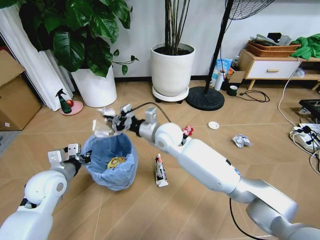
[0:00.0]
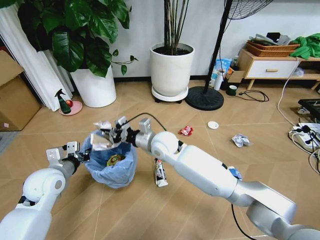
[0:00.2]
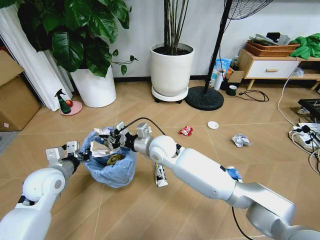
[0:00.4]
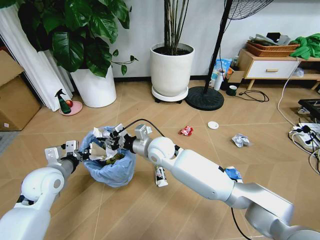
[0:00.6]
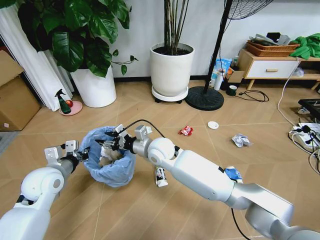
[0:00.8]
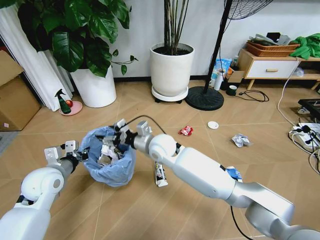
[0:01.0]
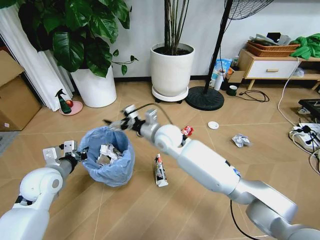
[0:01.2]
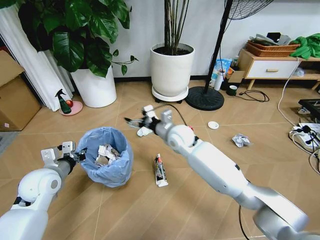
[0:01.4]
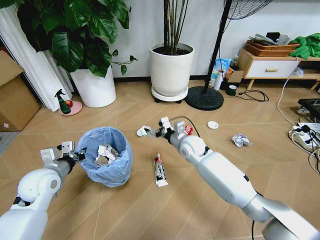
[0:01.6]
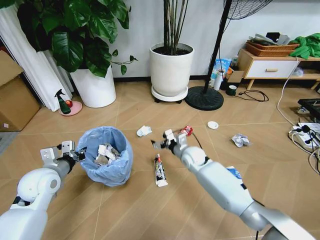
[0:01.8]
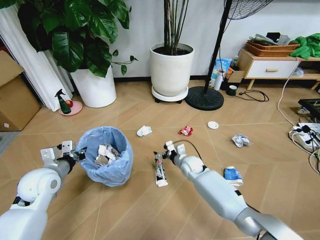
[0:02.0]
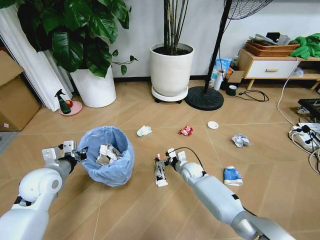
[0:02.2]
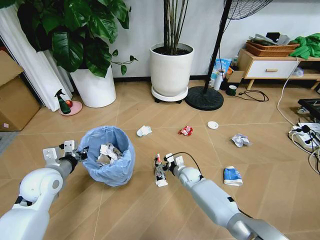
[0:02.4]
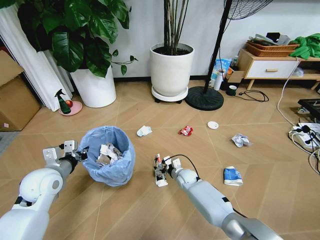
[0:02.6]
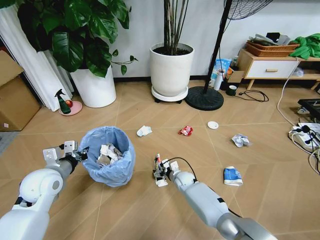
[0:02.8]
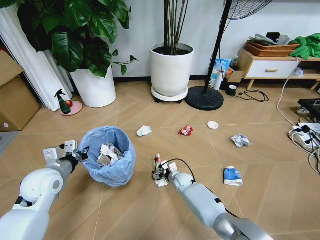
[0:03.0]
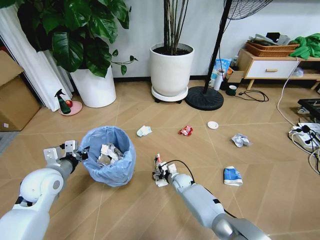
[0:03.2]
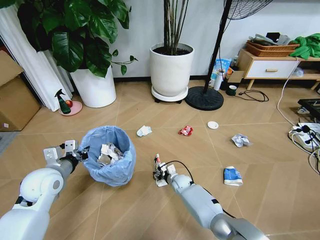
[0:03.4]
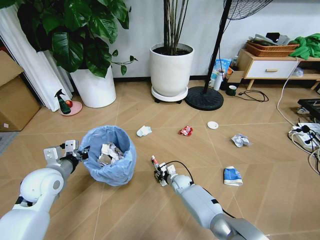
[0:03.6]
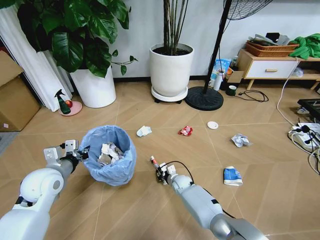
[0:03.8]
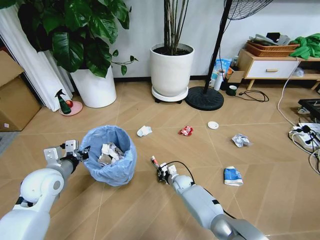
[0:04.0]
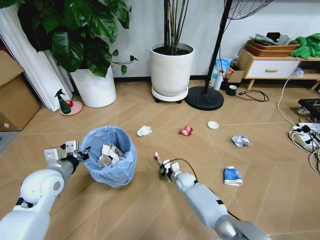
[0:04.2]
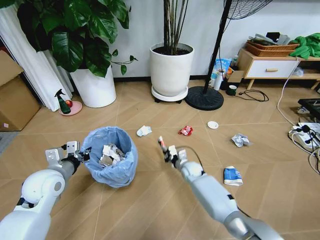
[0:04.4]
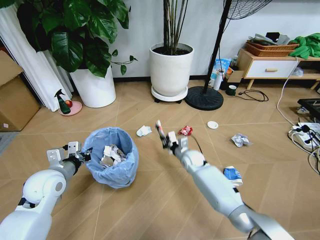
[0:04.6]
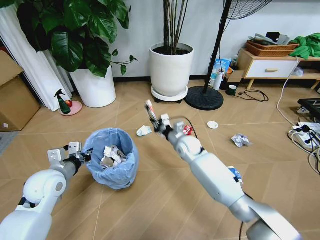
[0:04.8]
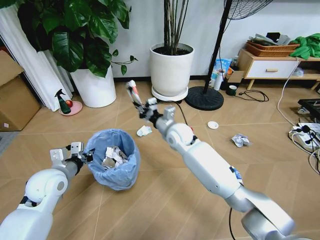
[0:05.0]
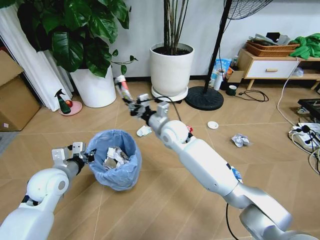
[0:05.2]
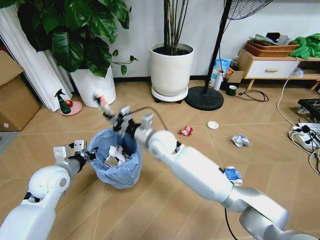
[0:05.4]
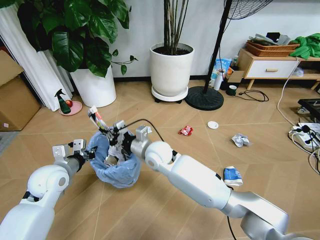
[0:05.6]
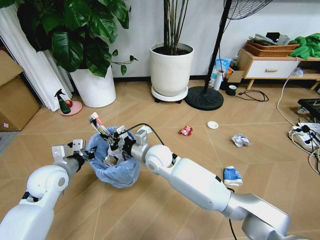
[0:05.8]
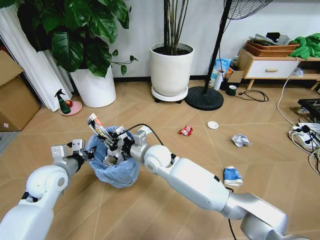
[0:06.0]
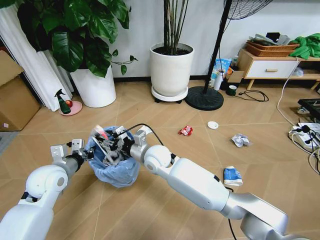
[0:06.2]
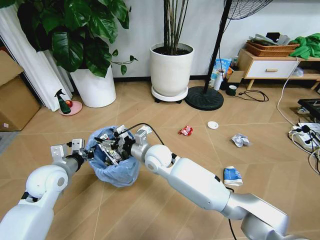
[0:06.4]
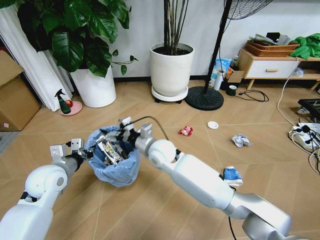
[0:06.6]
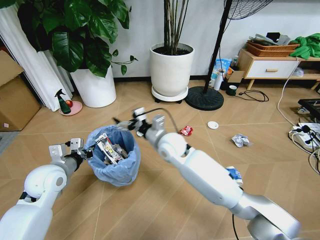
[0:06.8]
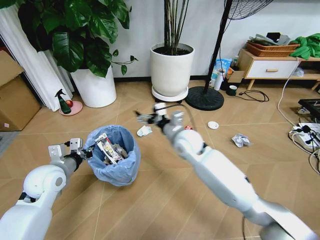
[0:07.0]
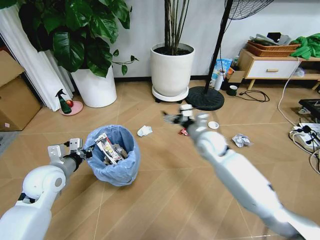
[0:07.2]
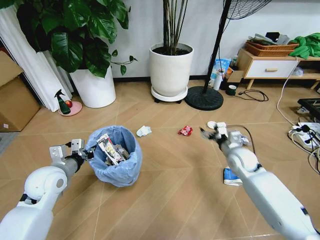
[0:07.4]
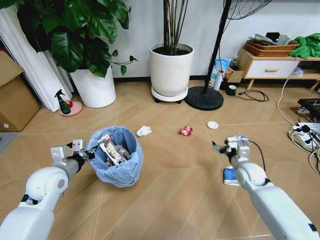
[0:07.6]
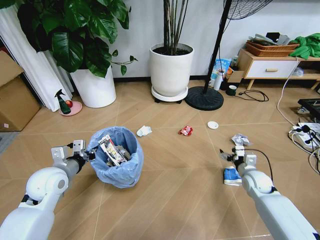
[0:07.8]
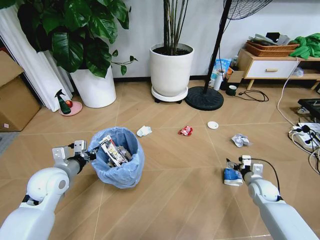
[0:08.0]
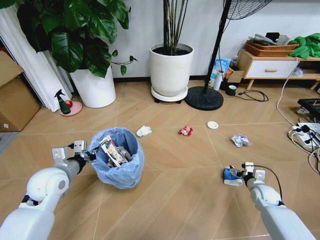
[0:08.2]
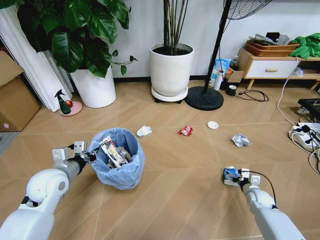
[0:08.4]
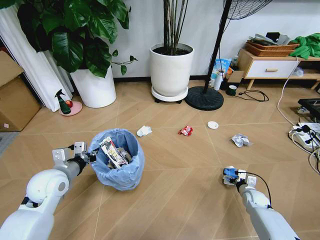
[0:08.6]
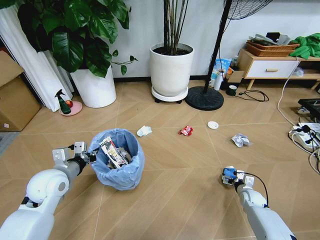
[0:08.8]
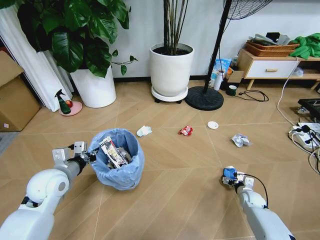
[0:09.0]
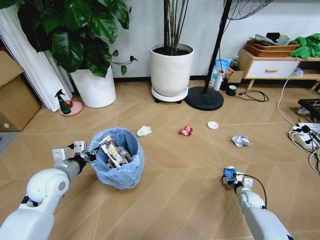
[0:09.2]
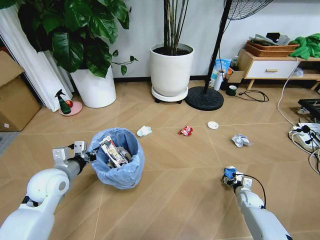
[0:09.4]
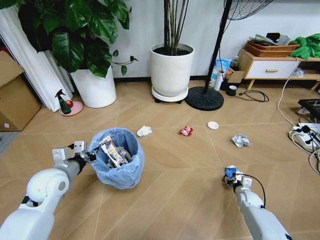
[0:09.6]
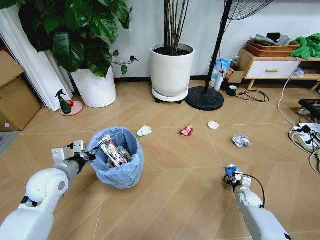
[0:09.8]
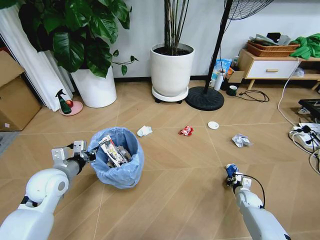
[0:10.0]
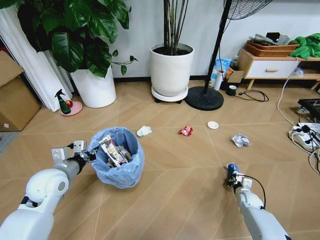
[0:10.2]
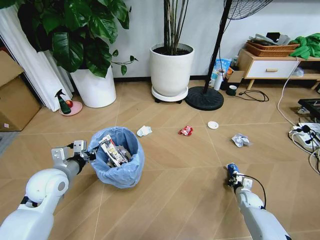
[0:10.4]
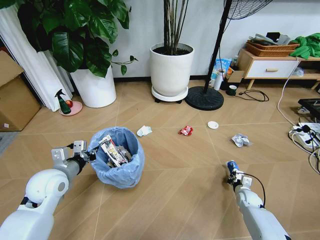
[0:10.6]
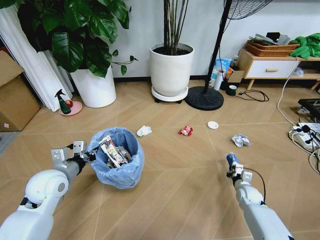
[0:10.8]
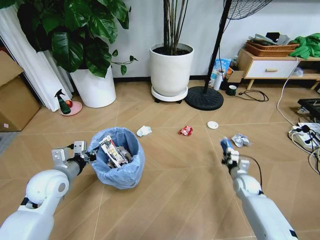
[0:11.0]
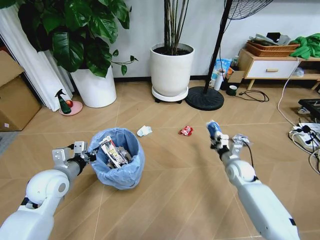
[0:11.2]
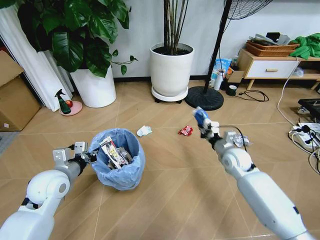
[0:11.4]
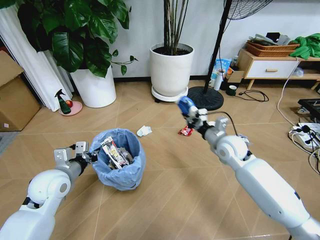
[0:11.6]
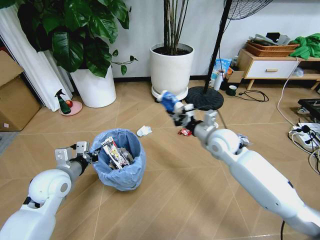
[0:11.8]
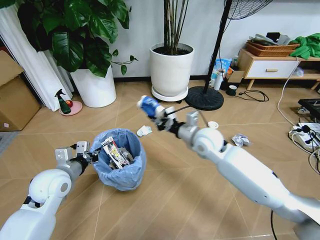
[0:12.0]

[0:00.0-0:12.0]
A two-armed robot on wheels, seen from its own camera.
Task of the whole recording: Pick up the trash bin and place the garbage on the floor into it.
0:00.0 to 0:01.6: The right gripper shifts roughly 15 cm to the right and downward, and opens.
0:01.6 to 0:03.0: The right gripper goes some 25 cm downward.
0:03.0 to 0:04.4: The right gripper shifts by roughly 5 cm, and closes its fingers.
0:04.4 to 0:06.0: The right gripper is displaced upward and to the left by approximately 25 cm.
0:06.0 to 0:07.6: The right gripper shifts some 35 cm to the right, and opens up.
0:07.6 to 0:09.0: The right gripper moves downward, about 15 cm.
0:09.0 to 0:10.4: The right gripper closes.
0:10.4 to 0:12.0: The right gripper heads upward and to the left, covering roughly 40 cm.

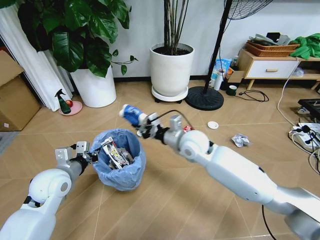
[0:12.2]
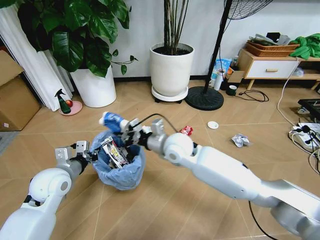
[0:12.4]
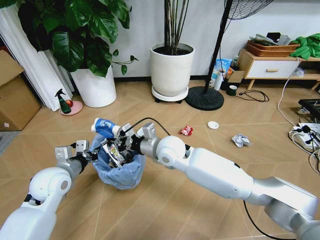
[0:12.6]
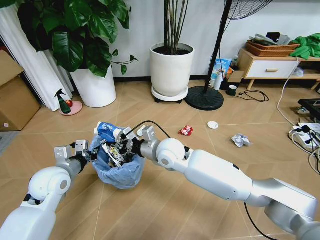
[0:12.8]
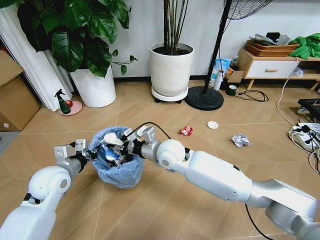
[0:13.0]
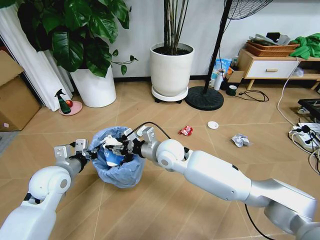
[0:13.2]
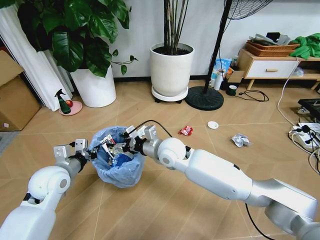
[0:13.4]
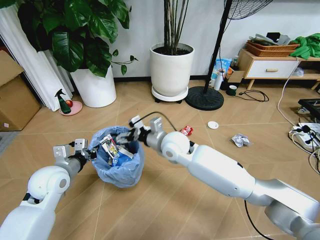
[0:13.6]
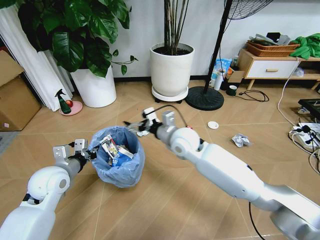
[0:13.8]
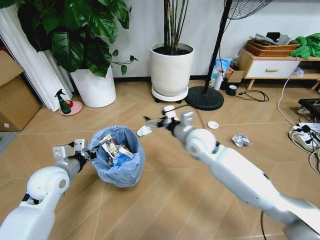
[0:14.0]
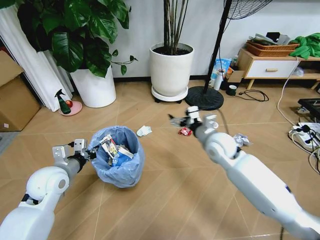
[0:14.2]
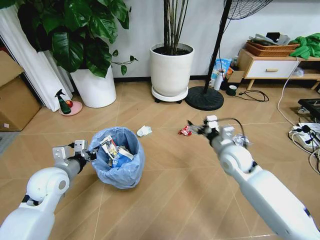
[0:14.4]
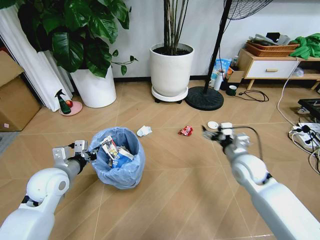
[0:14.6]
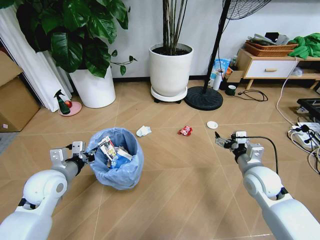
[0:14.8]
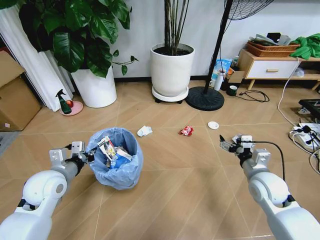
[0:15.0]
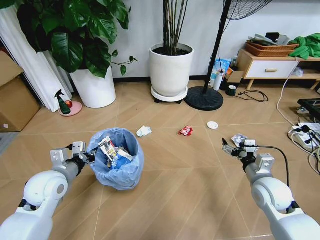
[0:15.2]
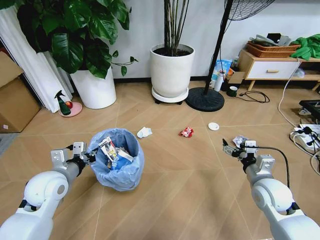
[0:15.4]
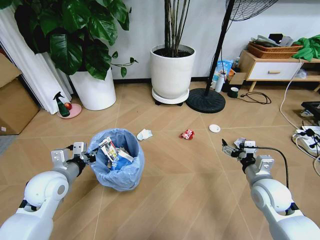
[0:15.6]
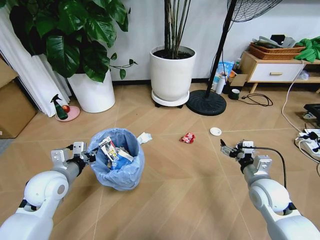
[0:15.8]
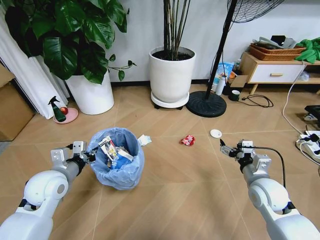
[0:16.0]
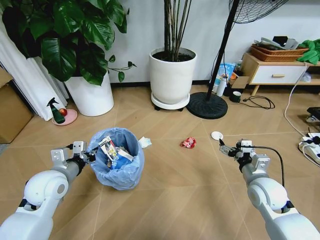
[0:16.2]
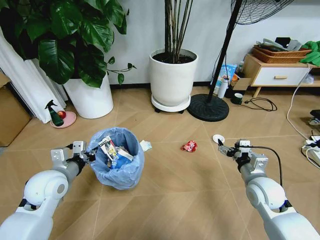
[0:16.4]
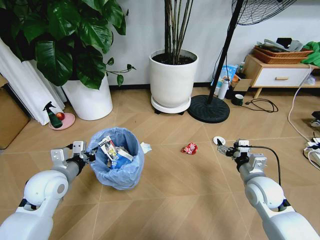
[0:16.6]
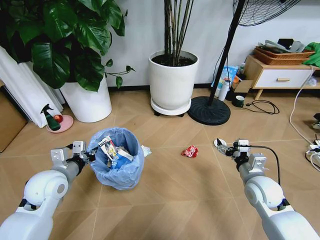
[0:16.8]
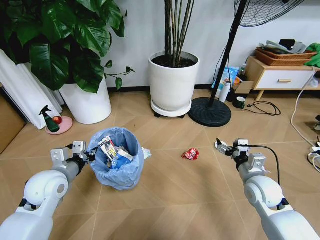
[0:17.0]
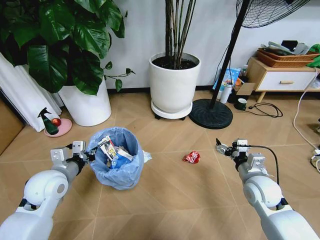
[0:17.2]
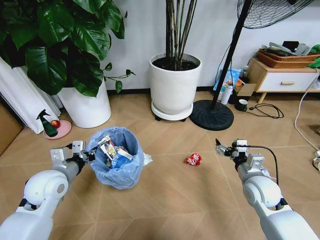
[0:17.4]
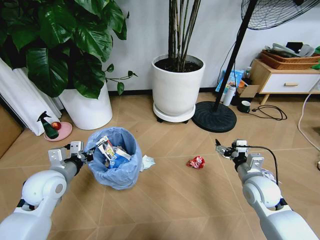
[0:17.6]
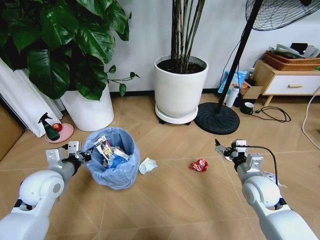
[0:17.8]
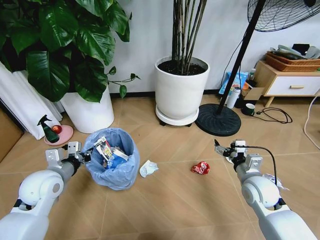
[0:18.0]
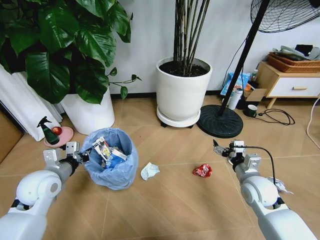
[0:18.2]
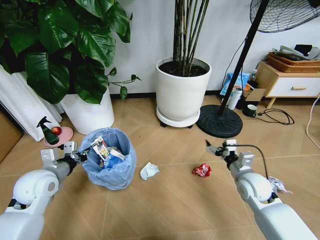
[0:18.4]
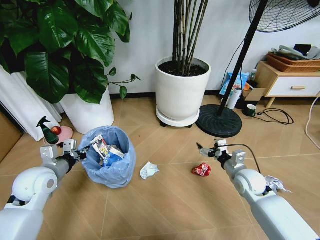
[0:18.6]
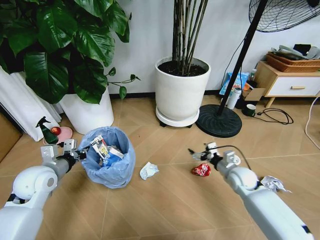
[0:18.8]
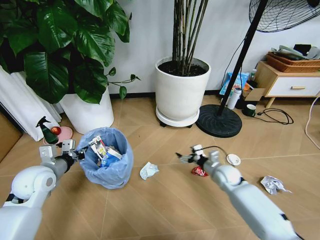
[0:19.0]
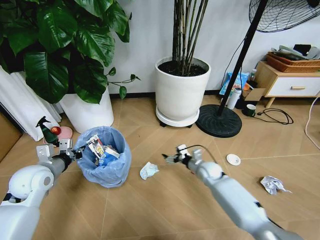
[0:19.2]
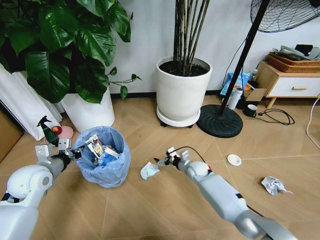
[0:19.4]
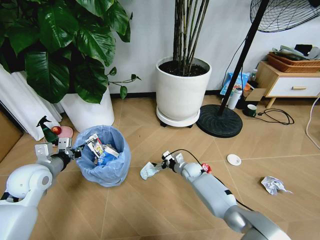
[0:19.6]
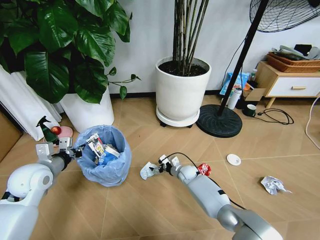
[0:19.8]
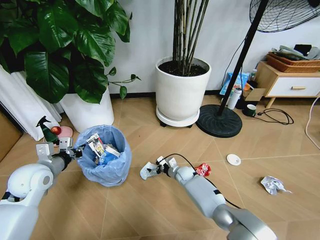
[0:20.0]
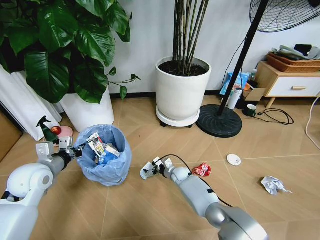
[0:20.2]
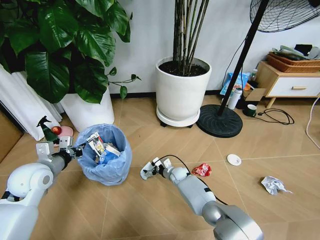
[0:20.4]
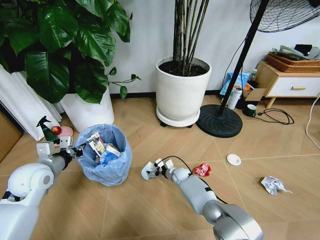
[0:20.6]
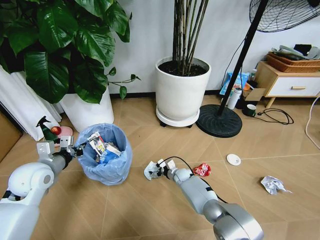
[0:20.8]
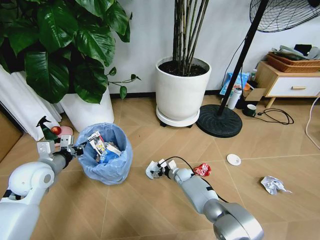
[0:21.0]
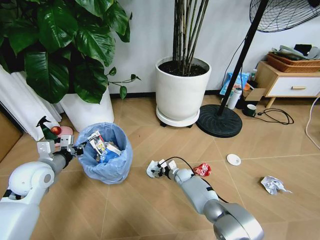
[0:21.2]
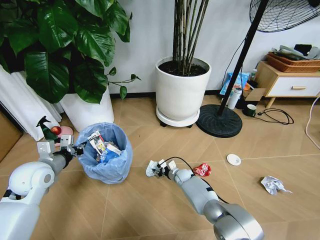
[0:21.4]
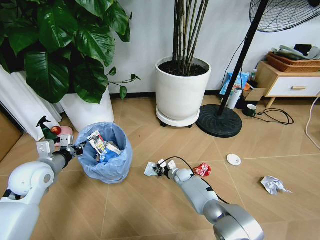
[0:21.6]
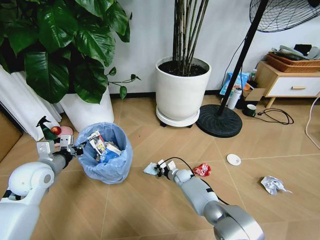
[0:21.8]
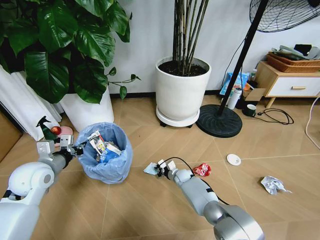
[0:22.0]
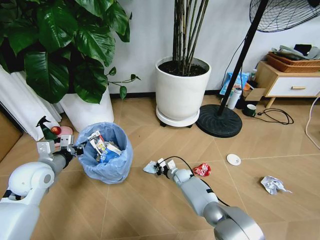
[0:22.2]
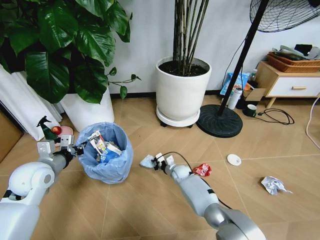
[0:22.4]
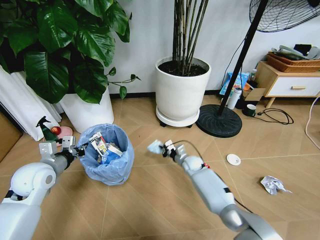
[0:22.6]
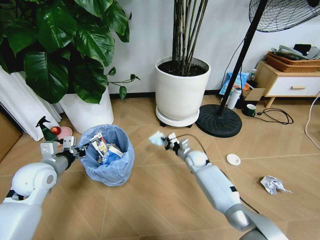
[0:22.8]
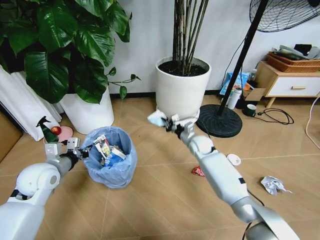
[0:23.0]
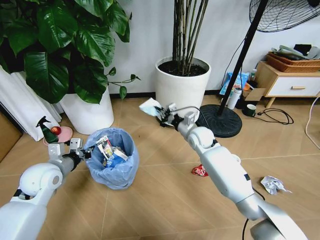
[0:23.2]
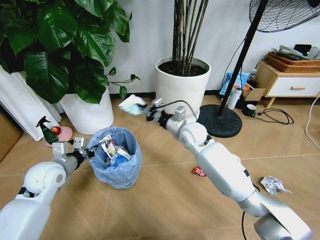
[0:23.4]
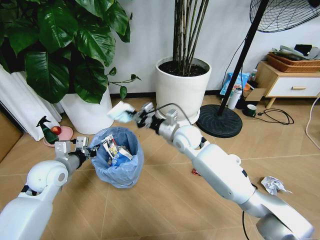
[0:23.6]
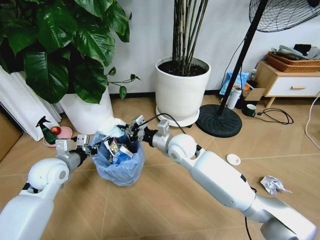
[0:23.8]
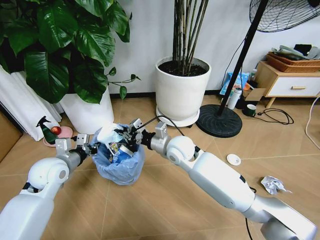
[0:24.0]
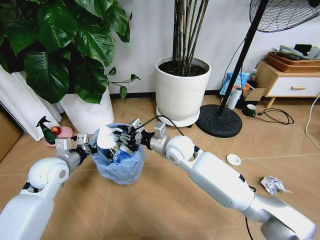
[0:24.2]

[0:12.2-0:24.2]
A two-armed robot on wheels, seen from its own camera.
Task of the whole recording: Pick up the trash bin and place the garbage on the floor into it.
0:12.2 to 0:13.8: The right gripper opens.
0:13.8 to 0:15.2: The right gripper is displaced to the right and backward by roughly 30 cm.
0:18.2 to 0:19.8: The right gripper shifts about 30 cm downward, to the left and forward.
0:19.8 to 0:21.2: There are only small adjustments of the grippers.
0:21.2 to 0:22.6: The right gripper is displaced upward by approximately 10 cm, and closes its fingers.
0:22.6 to 0:24.2: The right gripper travels upward and to the left by approximately 25 cm.
